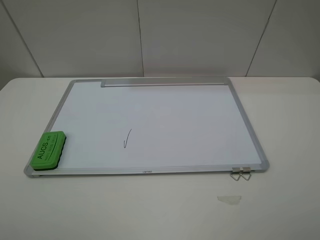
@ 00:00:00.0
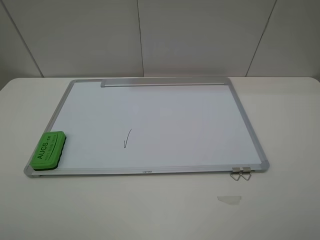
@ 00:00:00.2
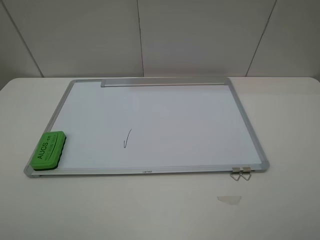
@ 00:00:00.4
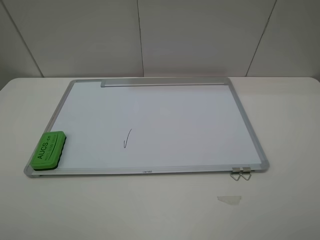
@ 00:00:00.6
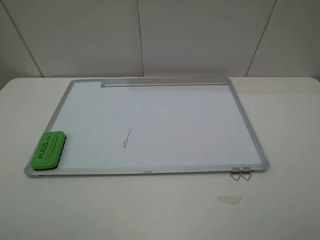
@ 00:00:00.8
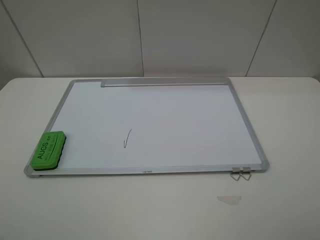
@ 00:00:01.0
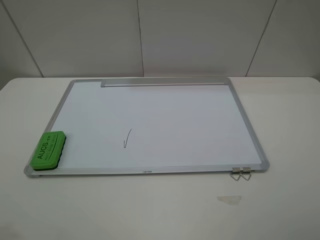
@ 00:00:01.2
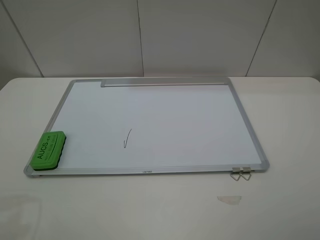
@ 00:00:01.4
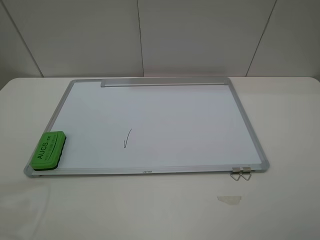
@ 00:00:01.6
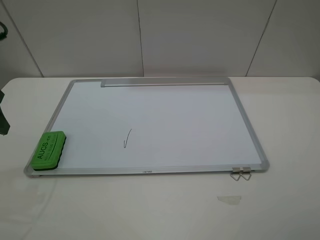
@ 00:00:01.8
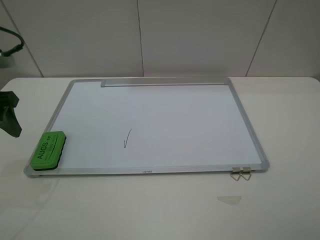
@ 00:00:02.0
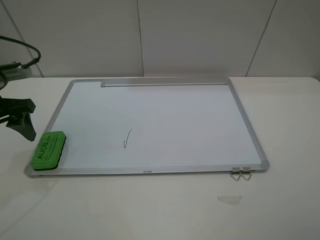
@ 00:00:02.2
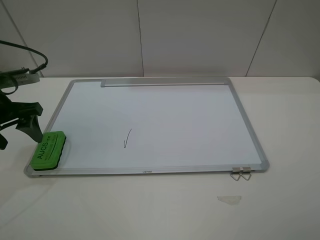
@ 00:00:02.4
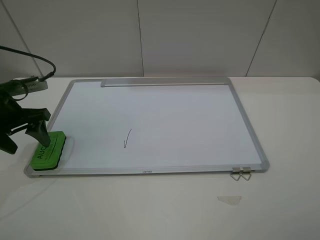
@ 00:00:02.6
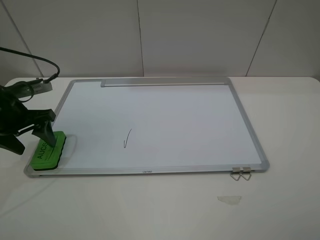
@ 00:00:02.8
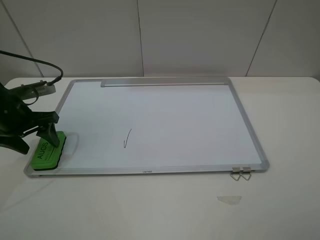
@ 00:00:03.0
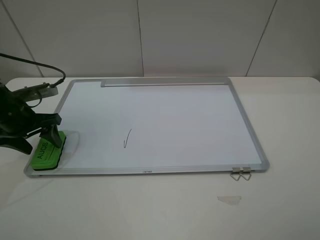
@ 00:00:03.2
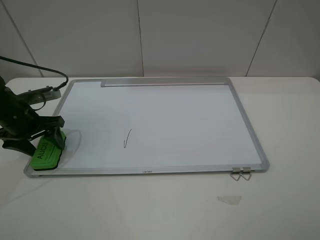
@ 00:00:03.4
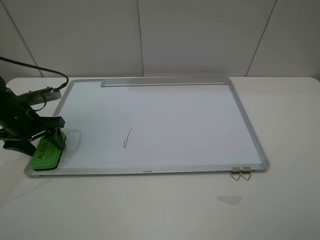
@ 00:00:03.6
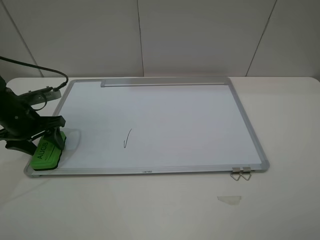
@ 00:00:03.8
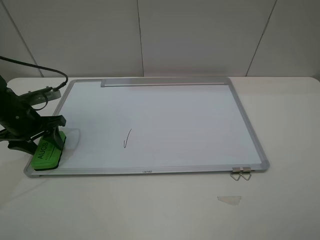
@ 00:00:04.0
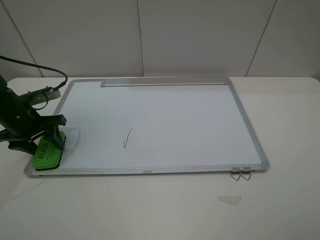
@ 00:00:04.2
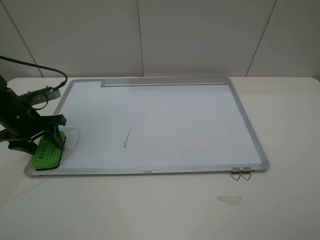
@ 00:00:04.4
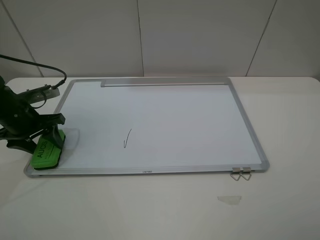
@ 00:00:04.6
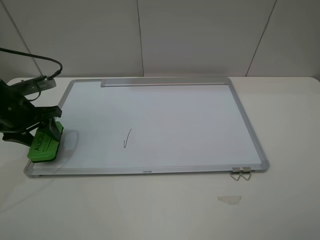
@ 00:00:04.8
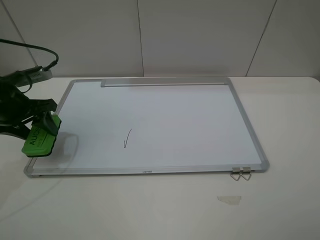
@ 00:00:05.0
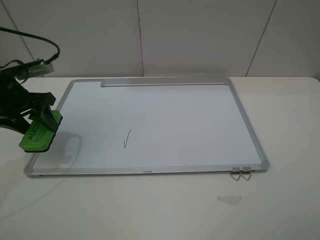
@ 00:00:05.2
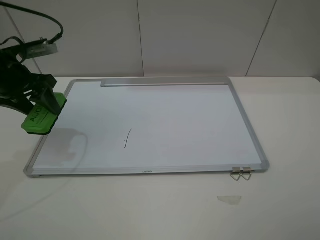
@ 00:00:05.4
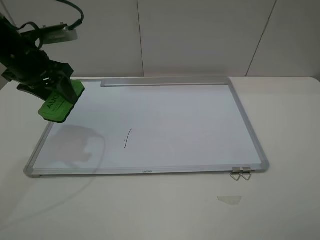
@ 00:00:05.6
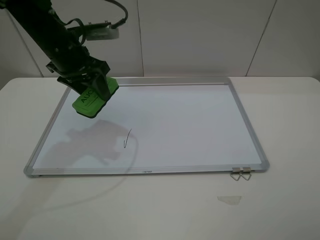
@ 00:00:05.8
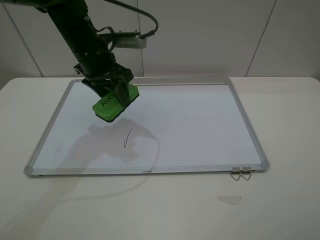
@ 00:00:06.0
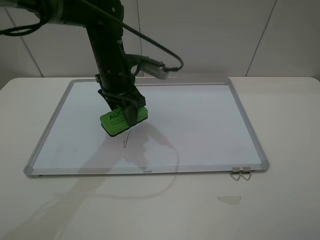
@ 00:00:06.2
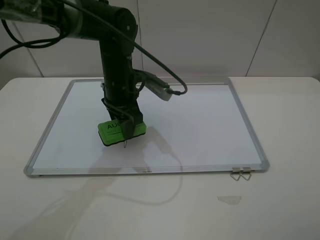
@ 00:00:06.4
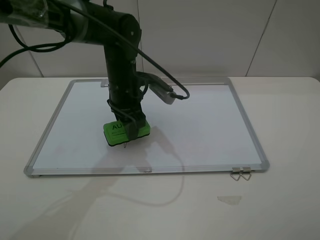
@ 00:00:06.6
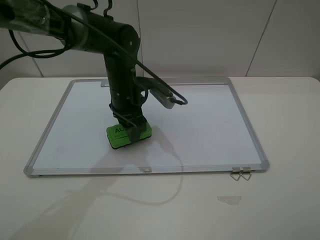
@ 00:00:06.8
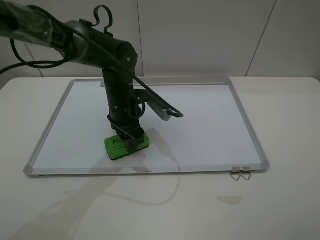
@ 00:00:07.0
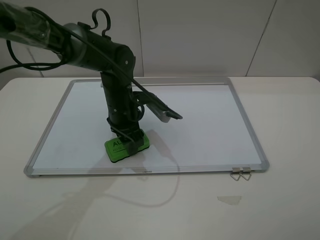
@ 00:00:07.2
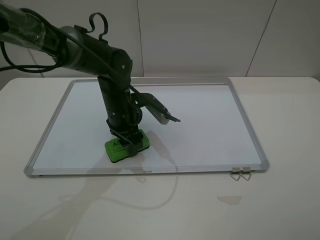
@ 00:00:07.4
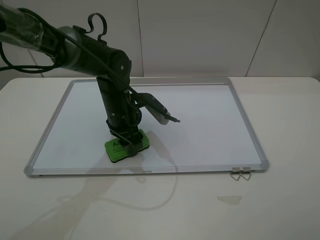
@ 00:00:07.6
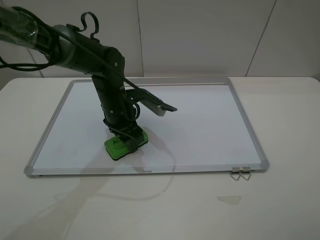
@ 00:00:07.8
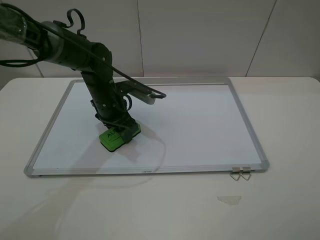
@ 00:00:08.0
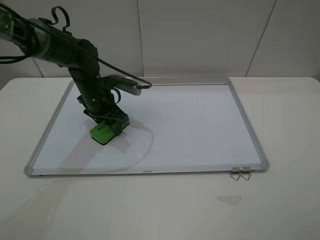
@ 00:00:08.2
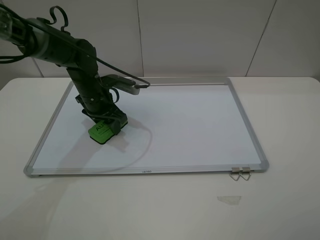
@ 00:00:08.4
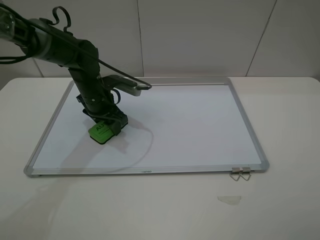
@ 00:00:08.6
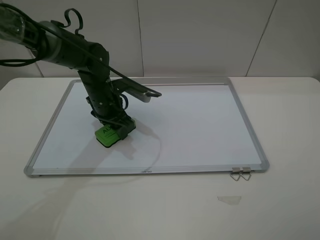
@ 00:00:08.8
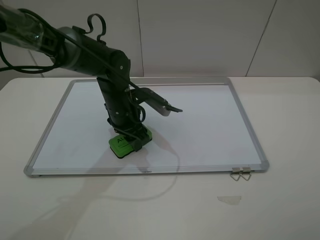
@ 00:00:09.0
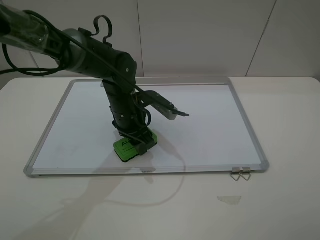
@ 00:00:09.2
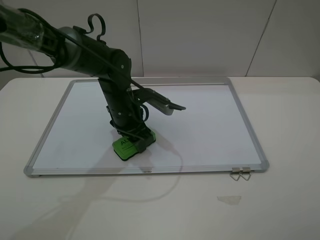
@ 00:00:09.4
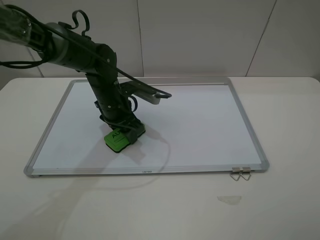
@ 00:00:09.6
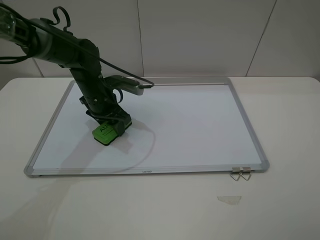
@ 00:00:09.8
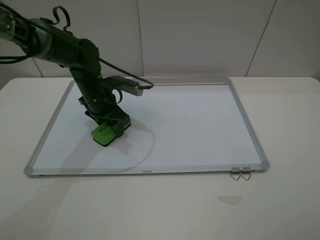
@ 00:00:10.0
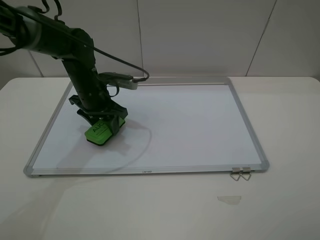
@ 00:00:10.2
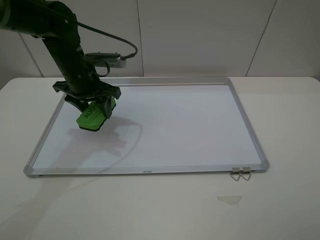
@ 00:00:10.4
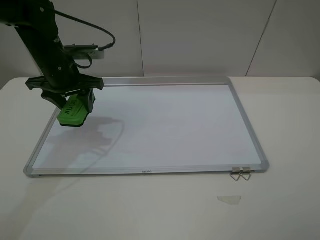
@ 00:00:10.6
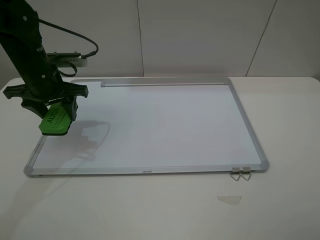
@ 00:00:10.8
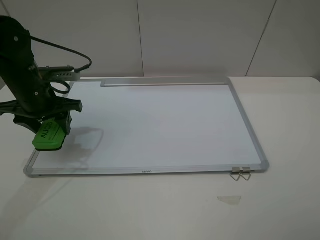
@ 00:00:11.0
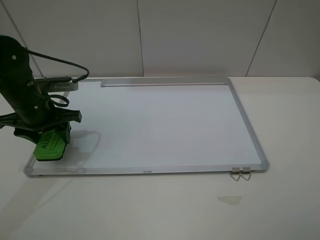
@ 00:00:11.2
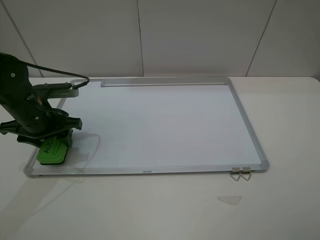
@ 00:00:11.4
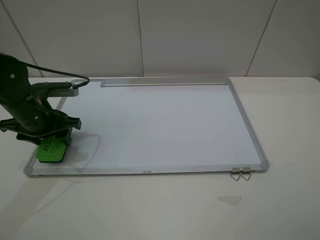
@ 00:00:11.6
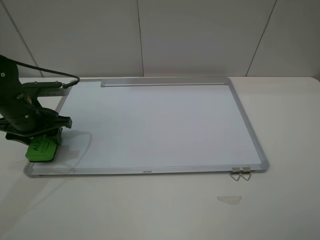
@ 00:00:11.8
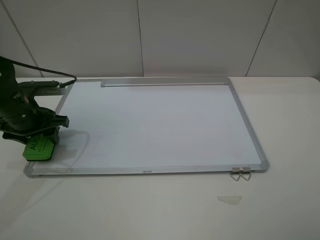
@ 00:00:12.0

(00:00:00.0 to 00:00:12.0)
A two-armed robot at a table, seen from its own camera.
Step, 00:00:00.0 - 00:00:04.4: Grasp the eraser with the left gripper.
Step, 00:00:04.6 - 00:00:09.8: Grasp the eraser and wipe the blackboard with the left gripper.
00:00:01.6 - 00:00:03.0: The left gripper moves downward and forward, some 20 cm.
00:00:03.0 - 00:00:04.4: The left gripper closes.
00:00:04.4 - 00:00:06.0: The left gripper goes approximately 20 cm to the right and upward.
00:00:06.0 - 00:00:07.6: The left gripper goes approximately 10 cm downward.
00:00:07.6 - 00:00:09.0: The left gripper reaches about 5 cm to the left, then returns.
00:00:09.0 - 00:00:10.4: The left gripper heads to the left and upward, covering about 15 cm.
00:00:10.4 - 00:00:12.0: The left gripper is displaced to the left and backward by about 15 cm.

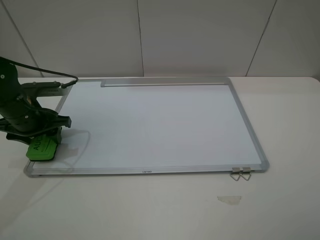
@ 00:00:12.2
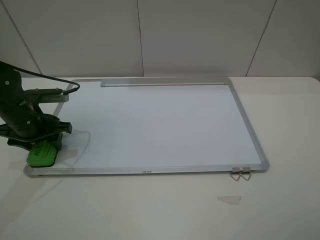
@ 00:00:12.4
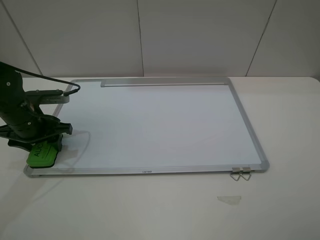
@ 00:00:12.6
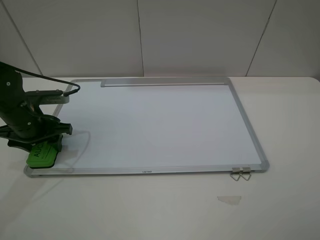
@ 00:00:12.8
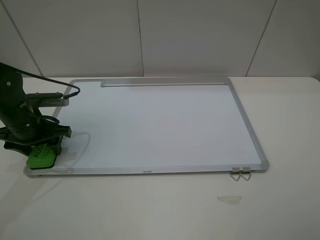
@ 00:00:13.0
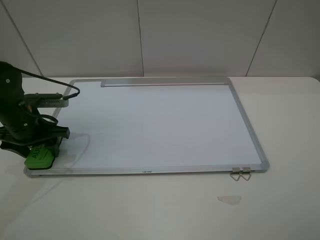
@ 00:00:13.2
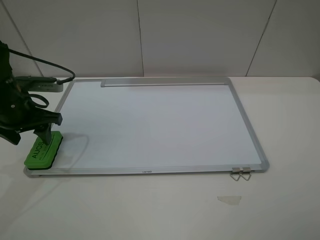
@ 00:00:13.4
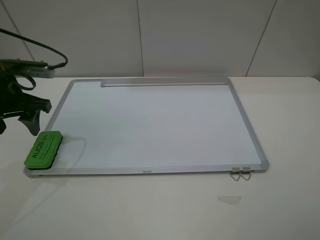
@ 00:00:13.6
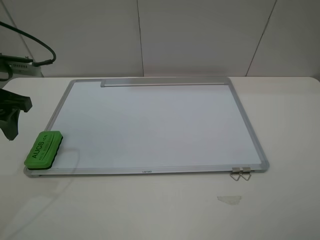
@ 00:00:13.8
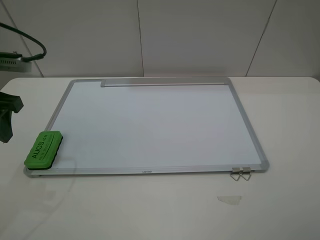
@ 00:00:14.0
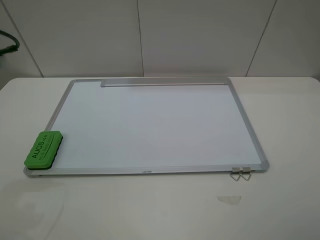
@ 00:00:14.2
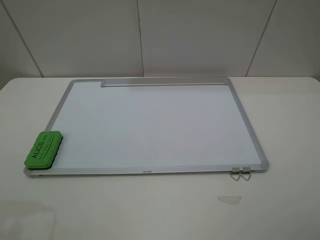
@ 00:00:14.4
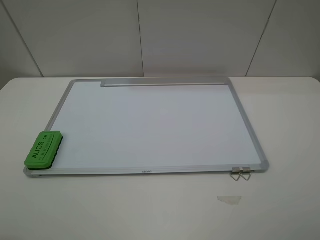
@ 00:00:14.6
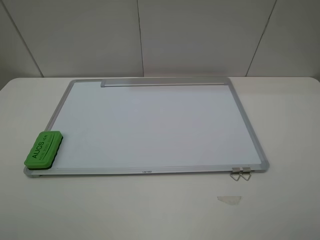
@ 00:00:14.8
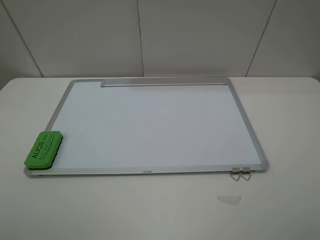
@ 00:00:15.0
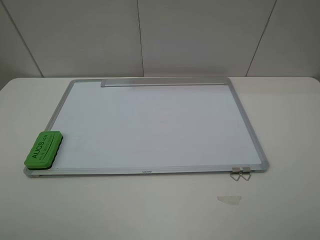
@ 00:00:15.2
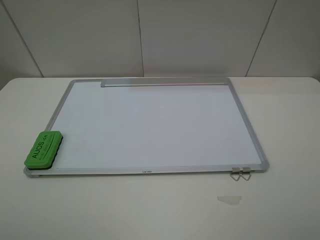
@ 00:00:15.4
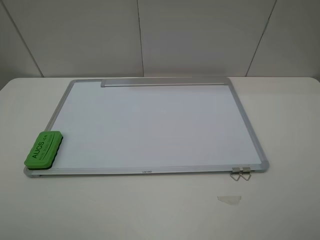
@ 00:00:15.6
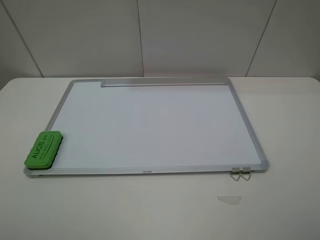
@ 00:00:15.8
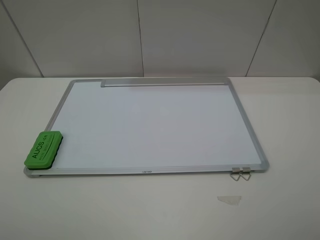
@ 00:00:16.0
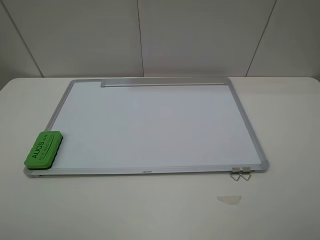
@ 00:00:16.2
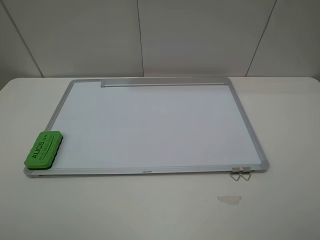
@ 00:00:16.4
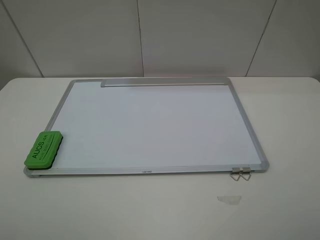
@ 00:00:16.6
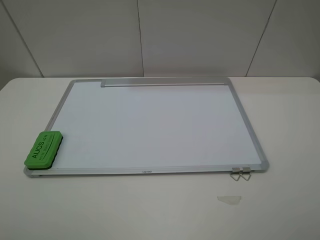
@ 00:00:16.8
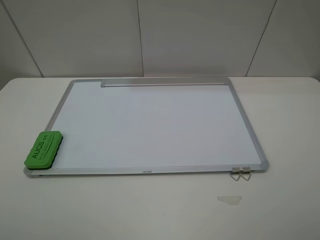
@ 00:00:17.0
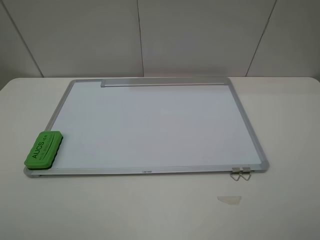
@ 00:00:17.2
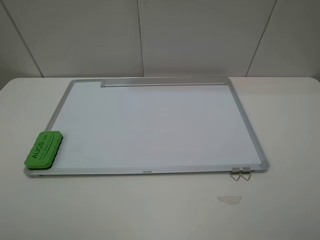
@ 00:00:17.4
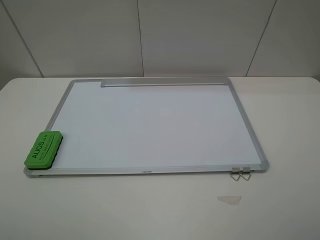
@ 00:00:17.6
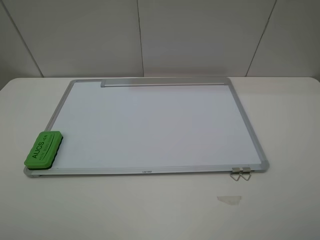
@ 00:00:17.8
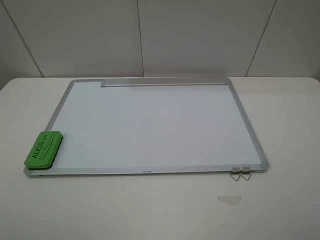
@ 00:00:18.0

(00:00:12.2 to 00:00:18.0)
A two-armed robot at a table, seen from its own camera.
00:00:12.2 - 00:00:13.6: The left gripper shifts roughly 10 cm upward, and opens its fingers.
00:00:13.6 - 00:00:15.0: The left gripper is displaced backward by approximately 25 cm.
00:00:16.6 - 00:00:18.0: Both grippers stay put.
